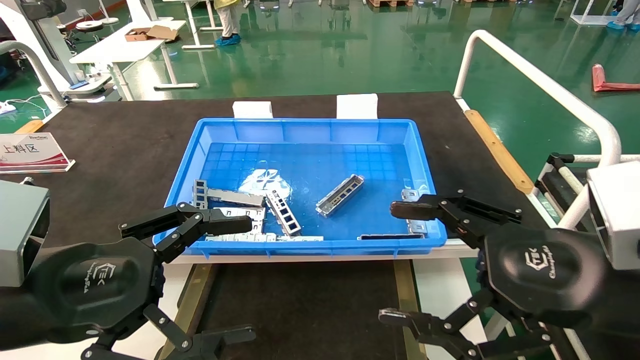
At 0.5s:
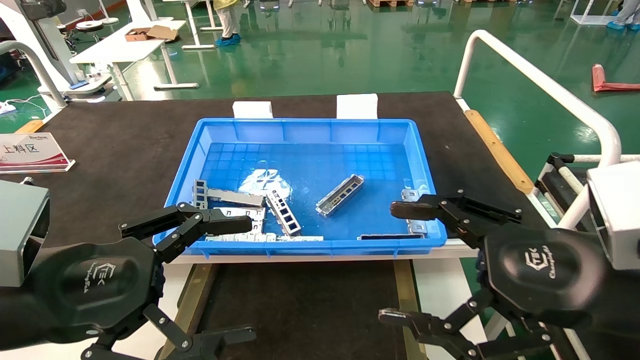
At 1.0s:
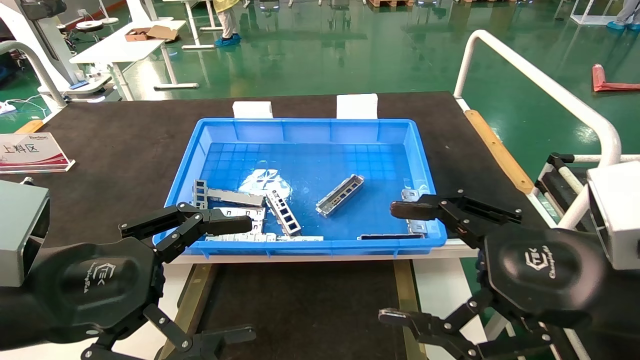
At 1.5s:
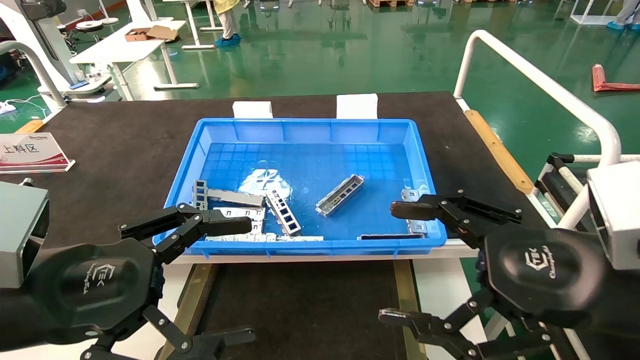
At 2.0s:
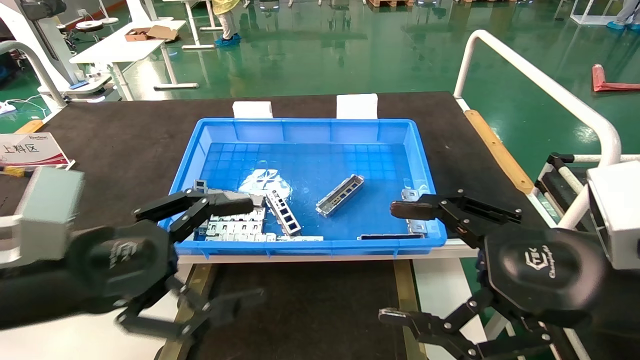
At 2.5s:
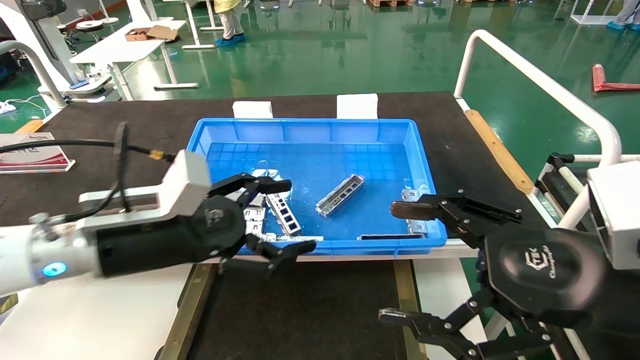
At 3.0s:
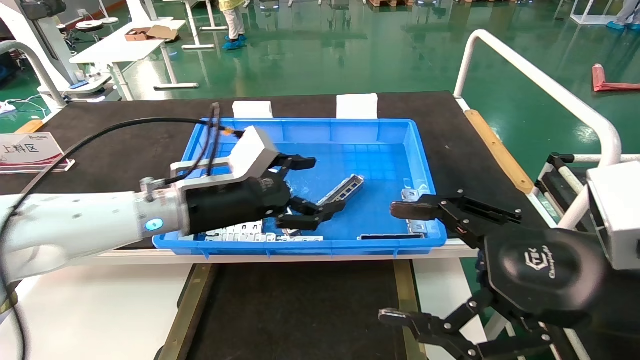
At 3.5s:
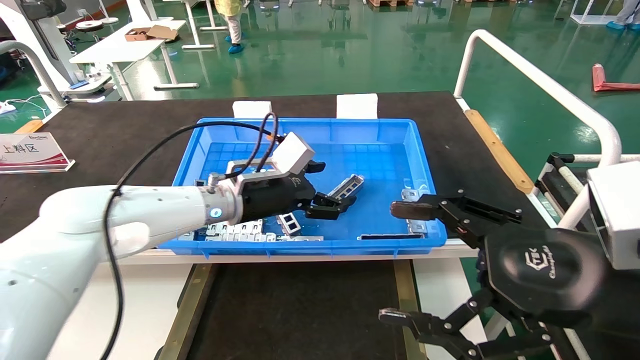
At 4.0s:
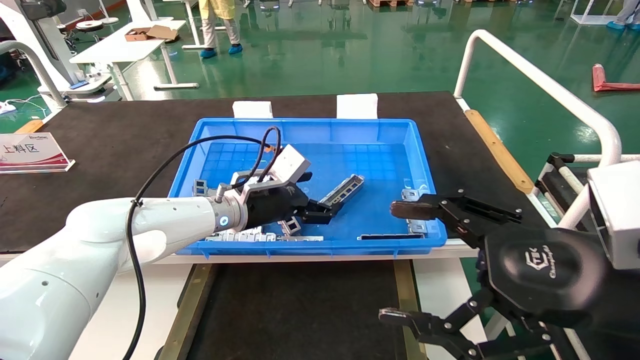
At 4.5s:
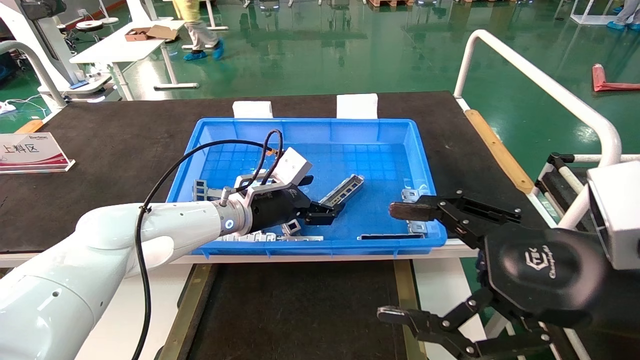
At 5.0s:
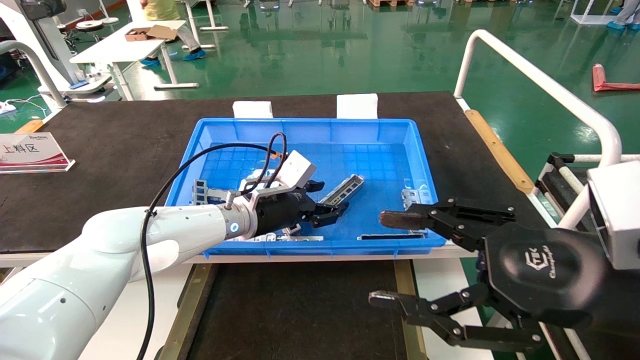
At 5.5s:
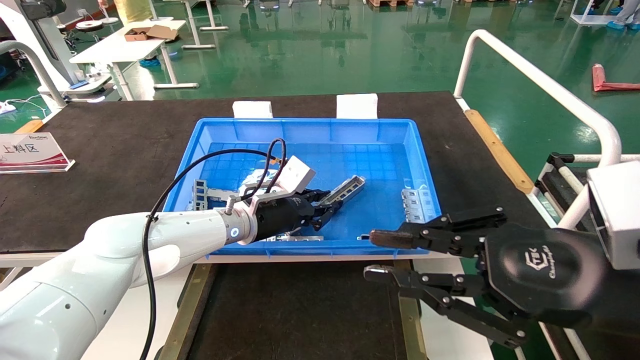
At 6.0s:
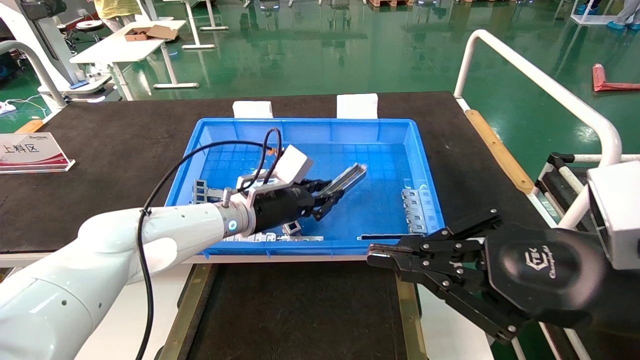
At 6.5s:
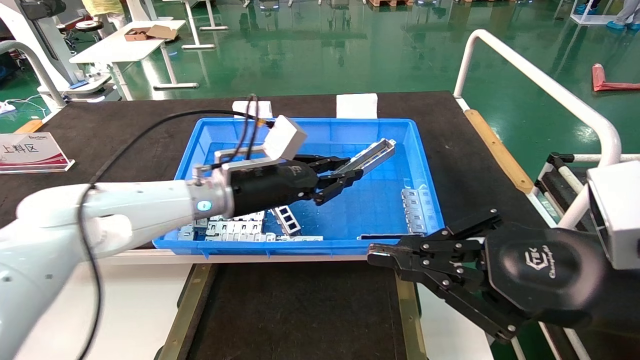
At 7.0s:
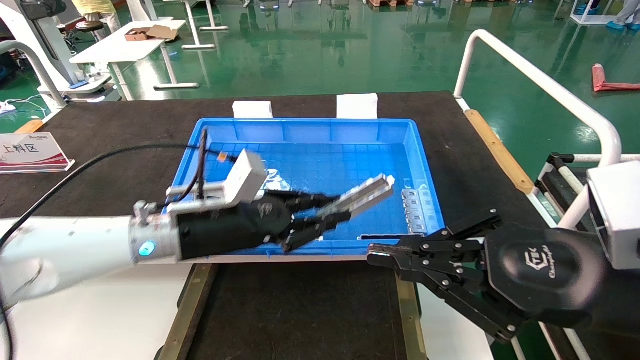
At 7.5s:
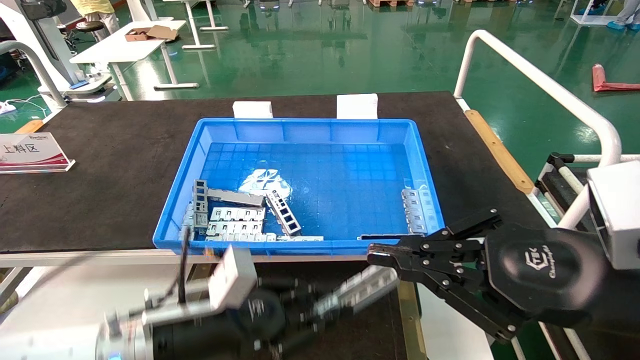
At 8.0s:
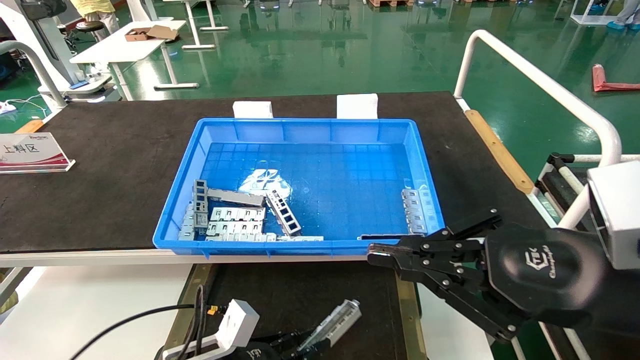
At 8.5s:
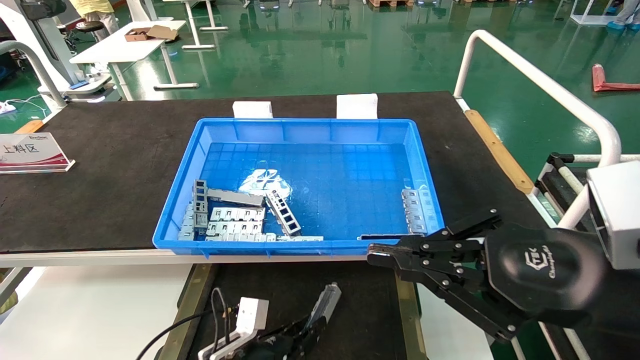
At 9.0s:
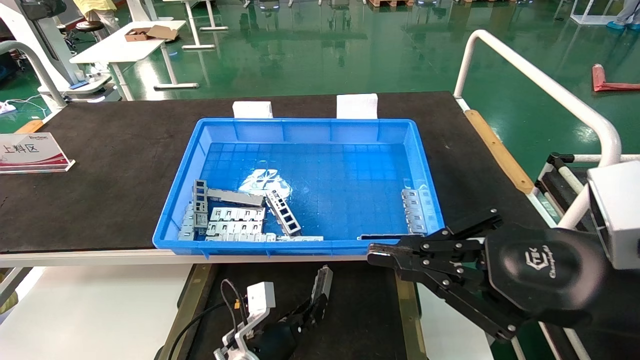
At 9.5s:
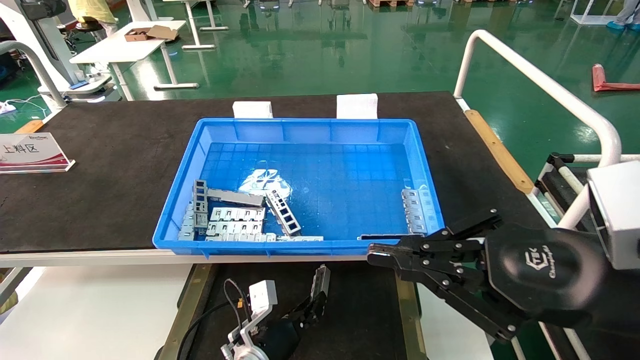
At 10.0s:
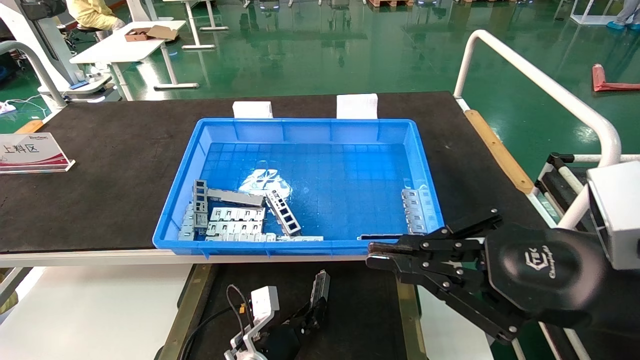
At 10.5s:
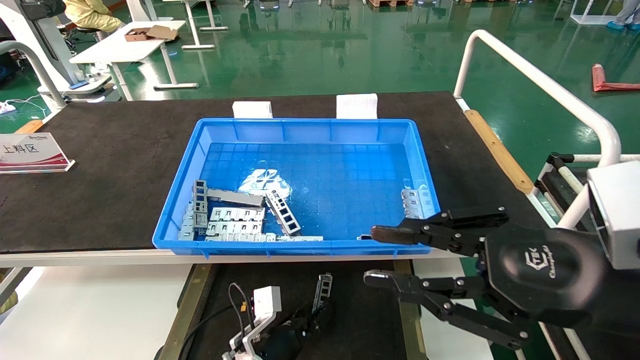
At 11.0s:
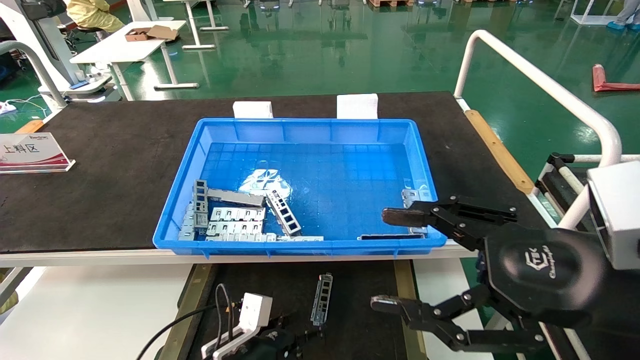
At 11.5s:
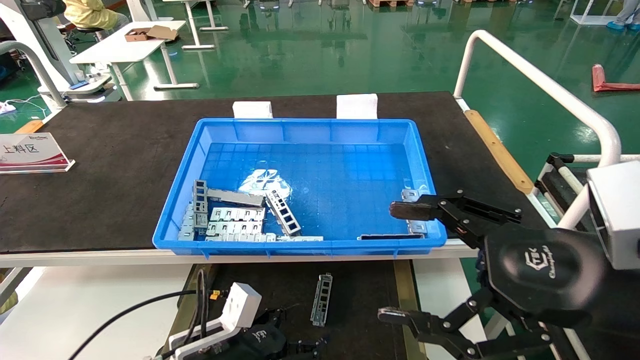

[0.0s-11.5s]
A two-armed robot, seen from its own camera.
Task of the whole recording: Grasp the part with one hand and place it on the black container.
Step, 2.0s to 6.0s: Pick up the front USB bracket from the feeding area.
Step, 6.5s to 10.5s: Place the front USB bracket into the box.
0.0s to 2.0s: There are only small adjustments of the grippers.
2.0s to 4.0s: The left gripper moves forward and to the right, approximately 30 cm.
4.0s to 6.0s: The right gripper closes, while the left gripper closes up.
6.0s to 7.5s: The left gripper shifts about 20 cm backward and downward.
7.5s to 9.5s: The left gripper moves downward, forward and to the right, roughly 20 cm.
9.5s to 11.5s: The right gripper opens its fingers, while the left gripper goes approximately 15 cm backward, upward and to the left, and opens.

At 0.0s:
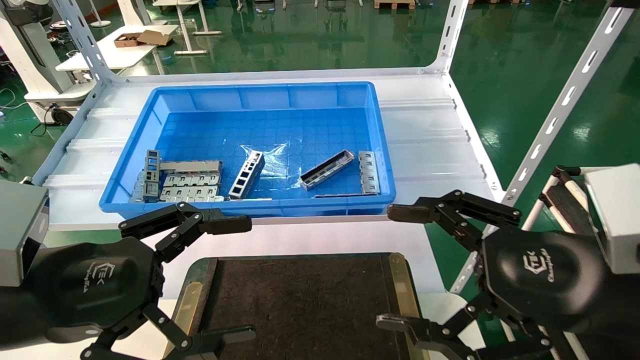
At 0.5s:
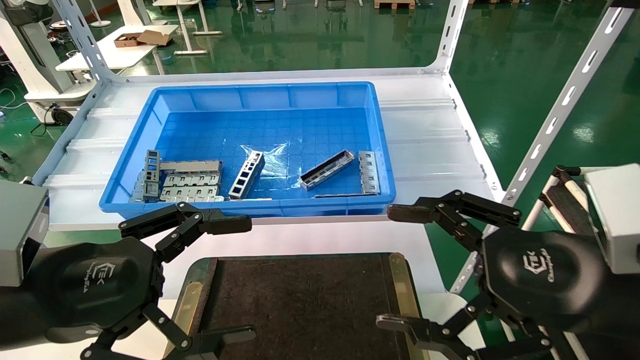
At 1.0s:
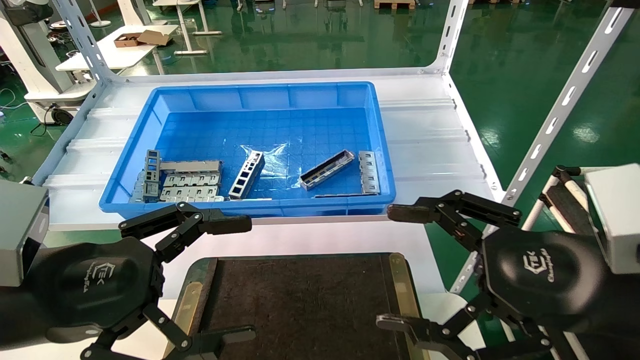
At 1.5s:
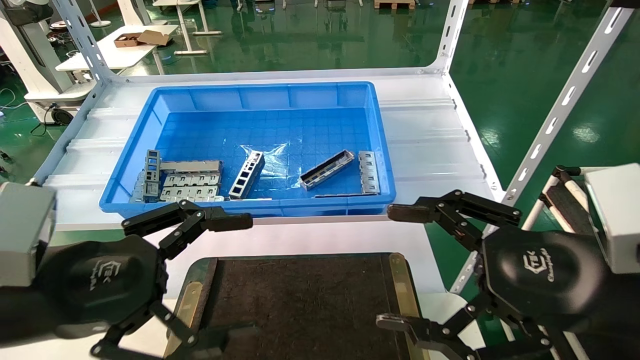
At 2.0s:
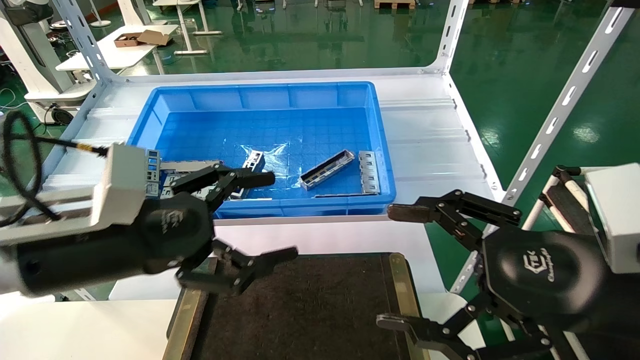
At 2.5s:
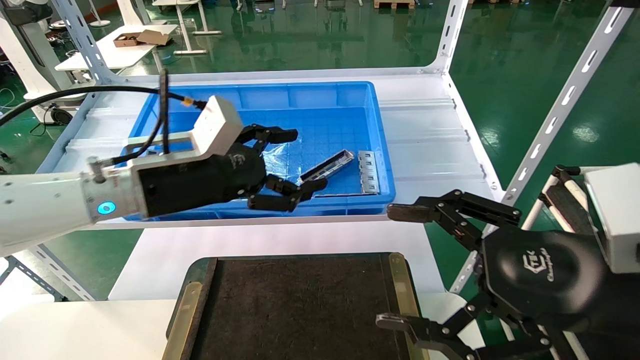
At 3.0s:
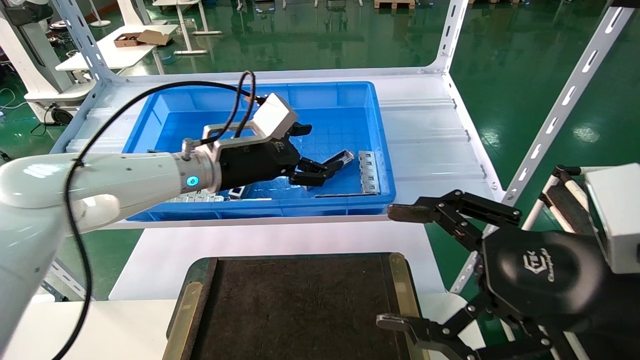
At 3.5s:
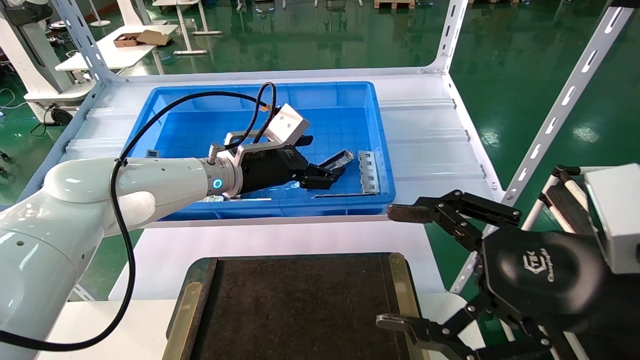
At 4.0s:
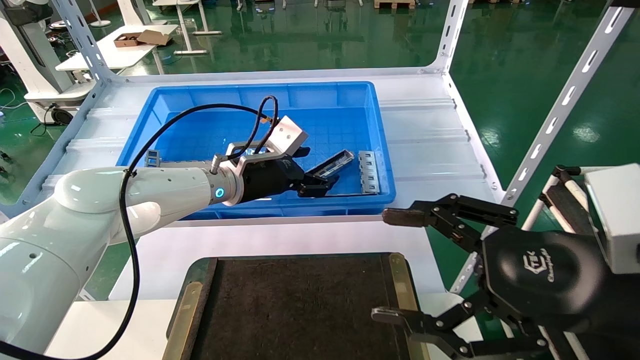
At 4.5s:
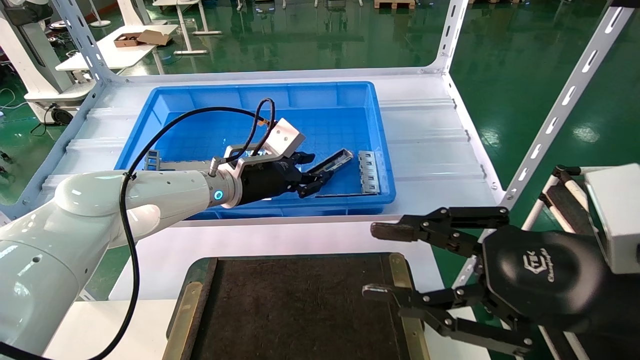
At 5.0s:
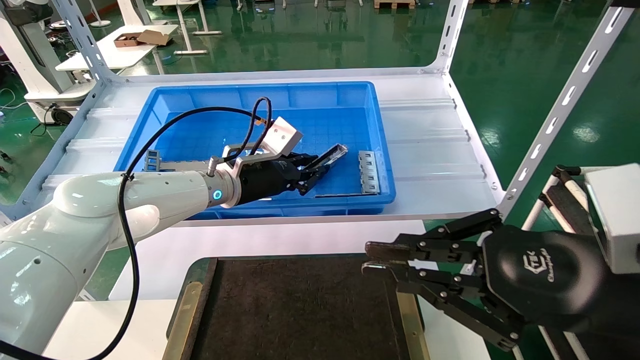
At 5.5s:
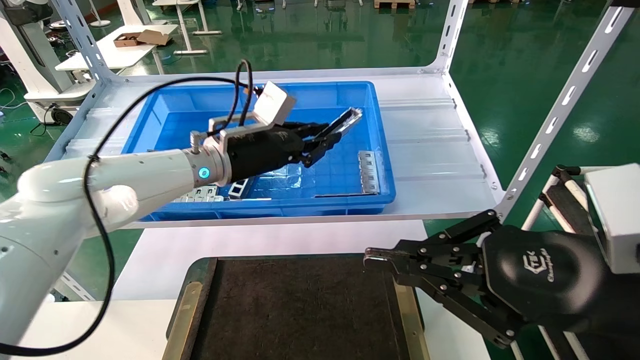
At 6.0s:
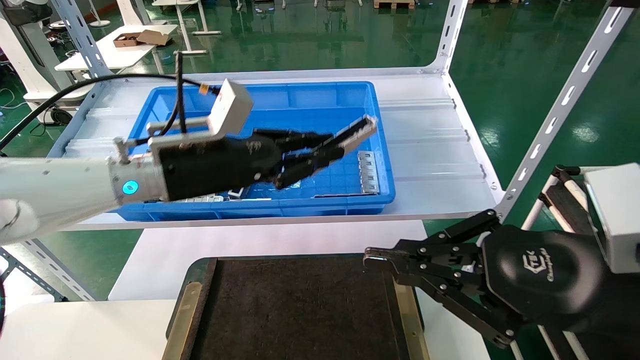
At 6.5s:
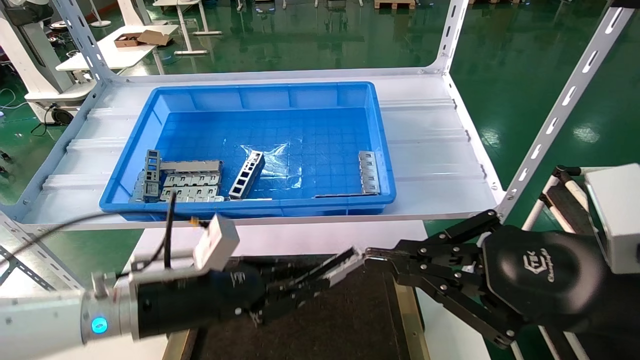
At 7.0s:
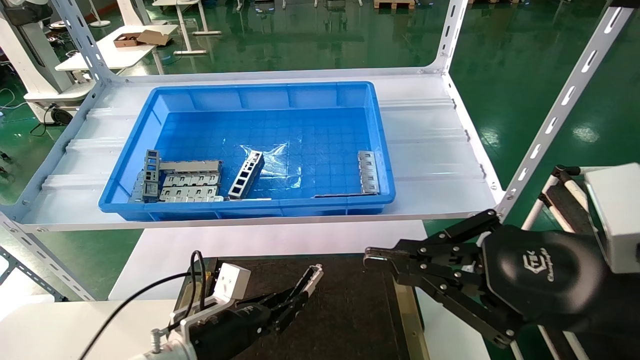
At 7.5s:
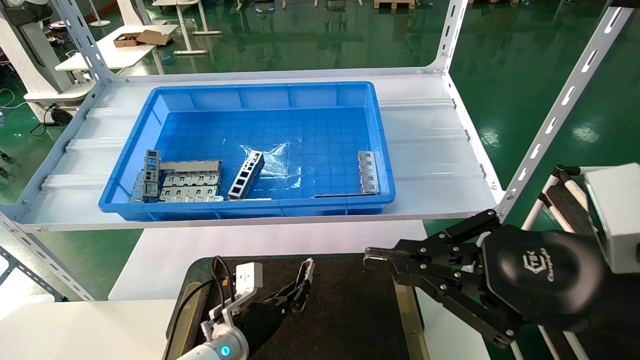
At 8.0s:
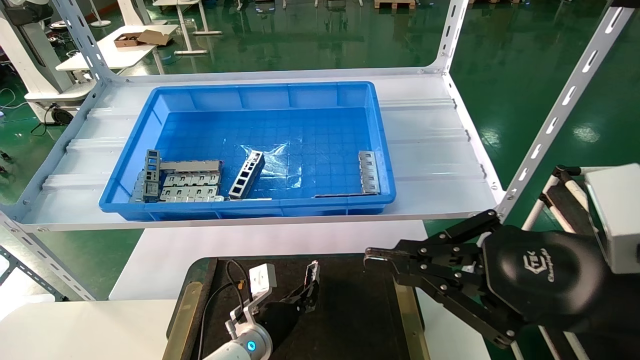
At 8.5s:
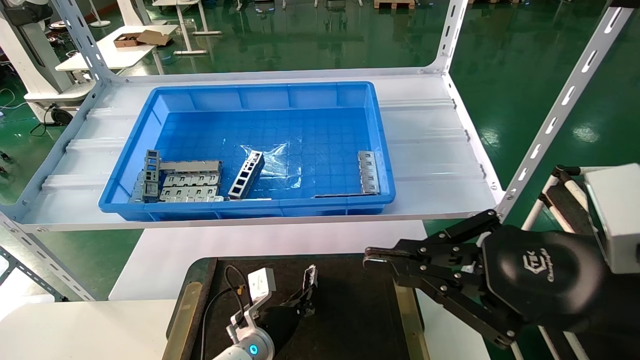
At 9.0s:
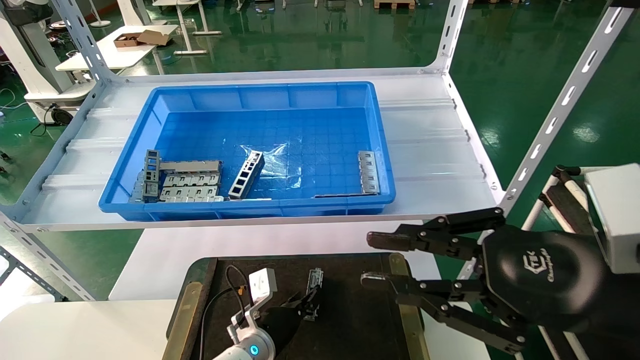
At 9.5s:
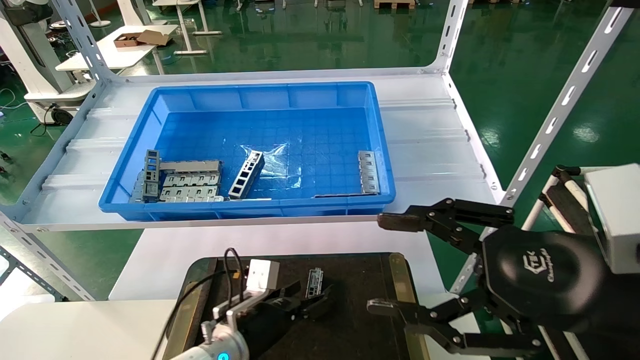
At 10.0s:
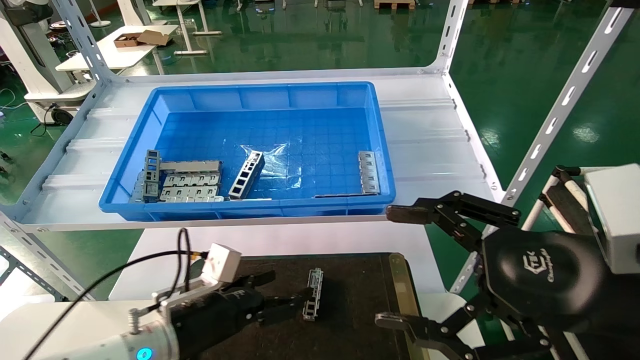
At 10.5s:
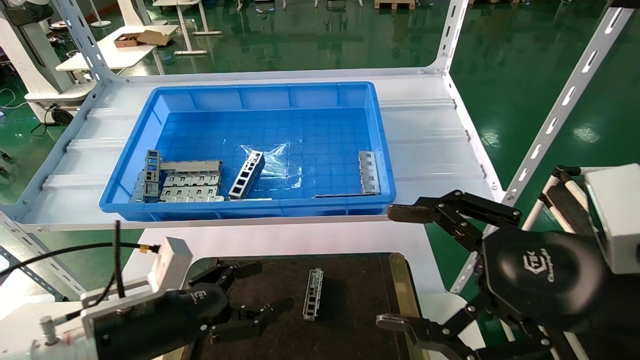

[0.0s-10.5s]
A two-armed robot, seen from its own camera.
Task of the whole recording: Grasp the part with one hand and place it on the black container.
Step, 2.0s to 5.5s: Pick up the front USB bracket from the feeding area.
Step, 6.0s to 9.0s: Place the front USB bracket into the box.
0.0s to 2.0s: The left gripper heads forward, covering roughly 5 cm.
2.0s to 4.0s: The left gripper shifts some 25 cm forward and to the right.
4.0s to 6.5s: The left gripper travels backward, downward and to the left by some 20 cm, and closes its fingers. Meanwhile the right gripper closes up.
6.5s to 8.5s: The left gripper shifts roughly 25 cm downward, to the right and forward.
8.5s to 10.5s: The right gripper opens its fingers; the left gripper shifts some 25 cm upward, to the left and backward, and opens.
